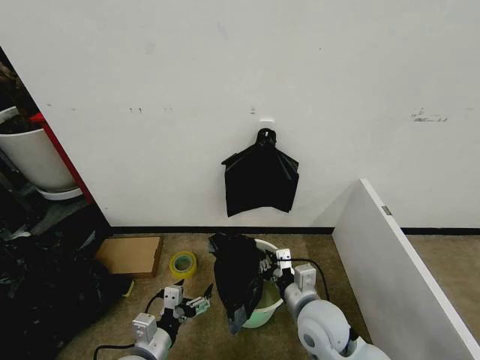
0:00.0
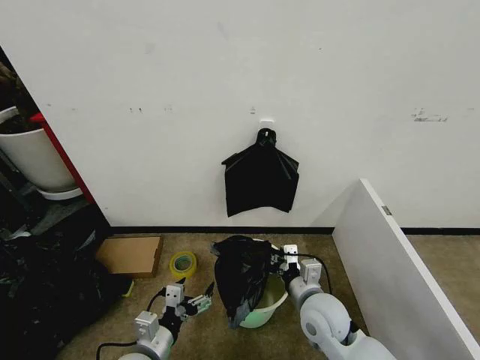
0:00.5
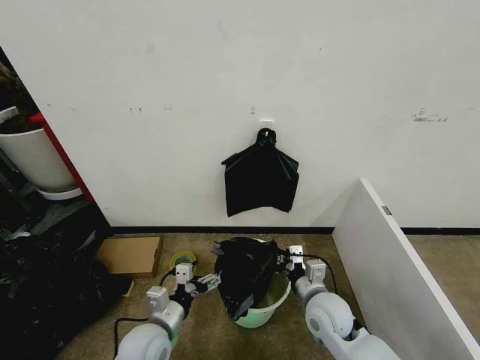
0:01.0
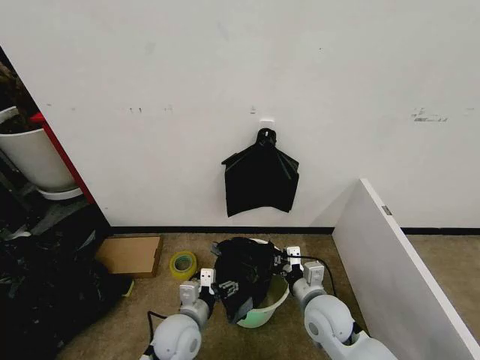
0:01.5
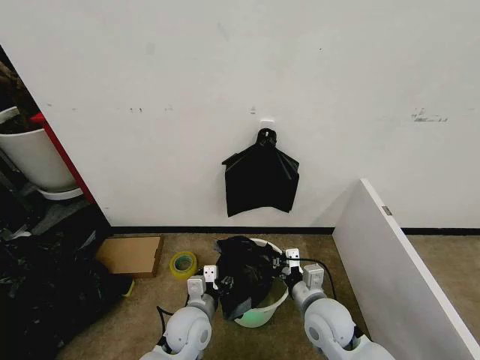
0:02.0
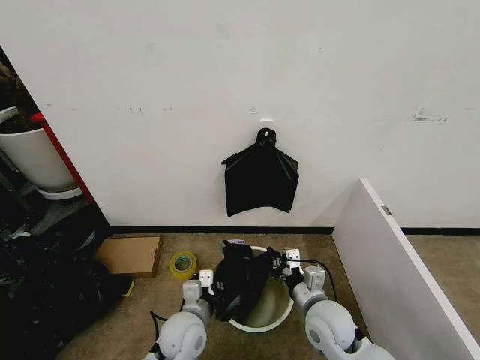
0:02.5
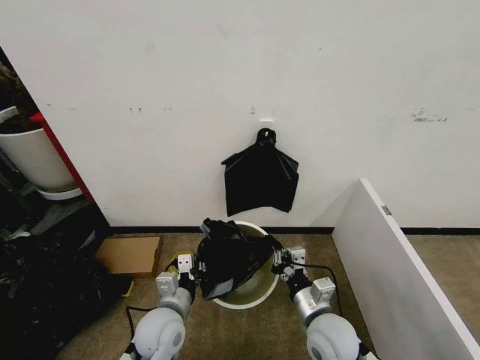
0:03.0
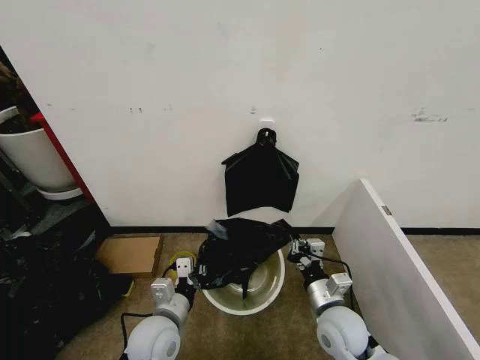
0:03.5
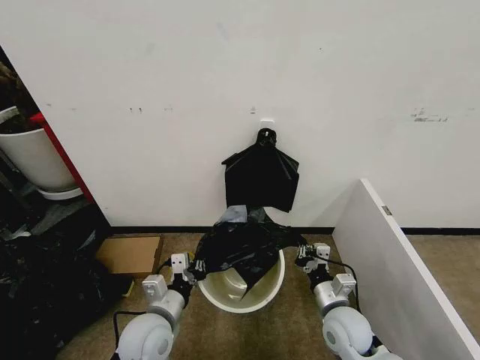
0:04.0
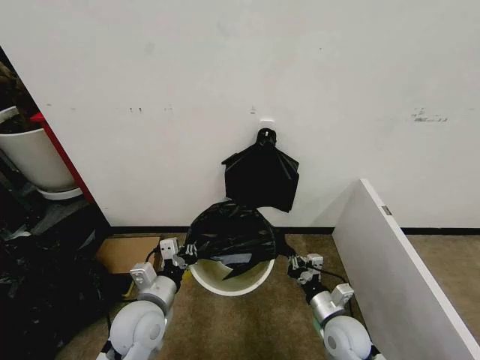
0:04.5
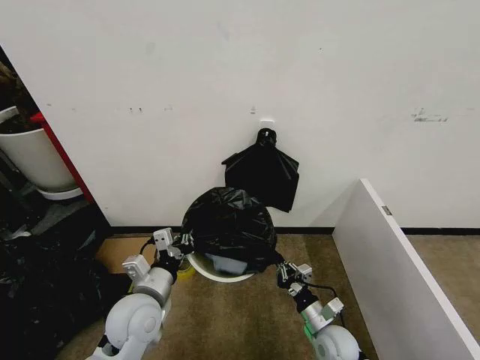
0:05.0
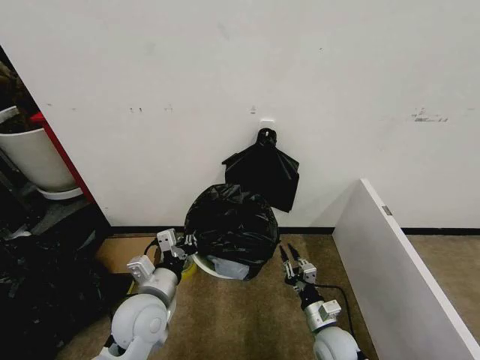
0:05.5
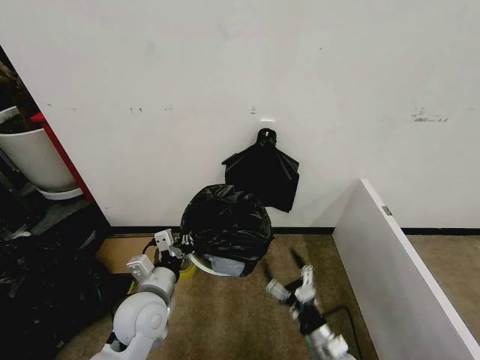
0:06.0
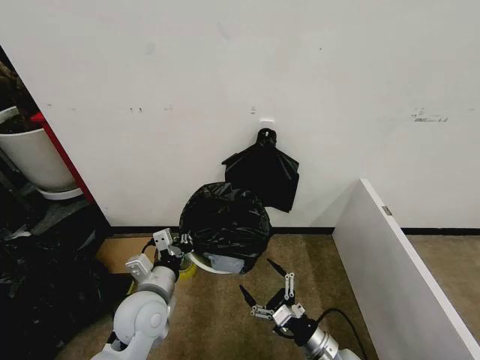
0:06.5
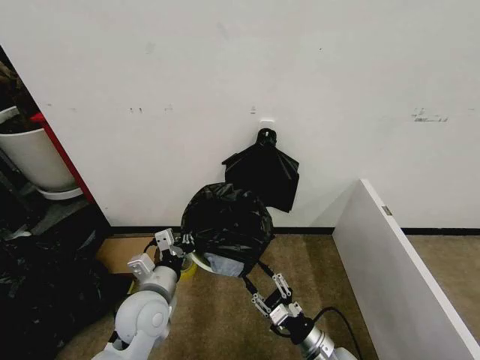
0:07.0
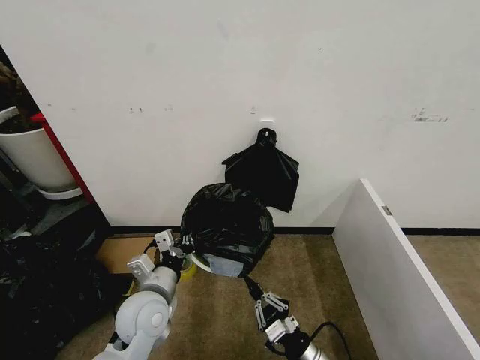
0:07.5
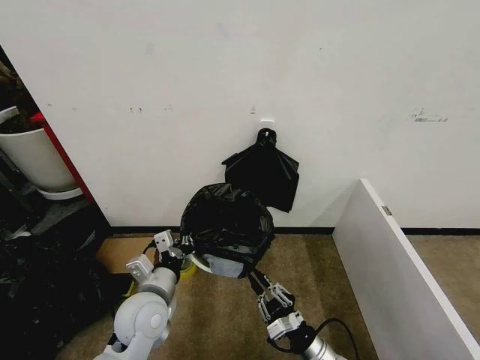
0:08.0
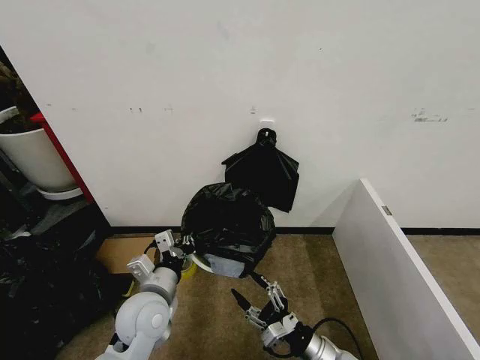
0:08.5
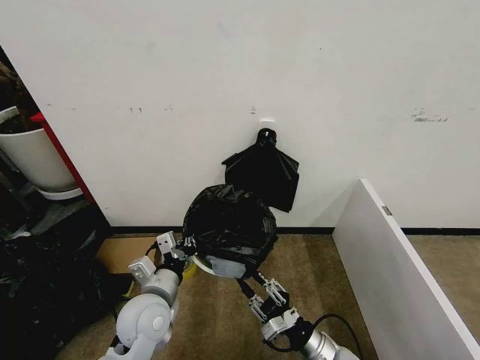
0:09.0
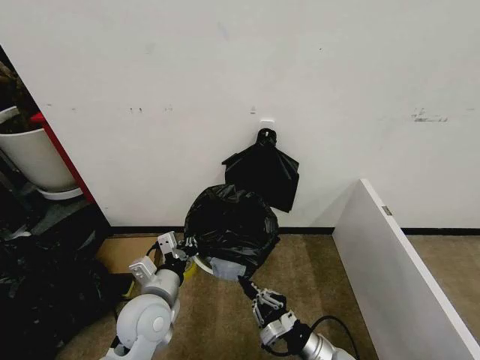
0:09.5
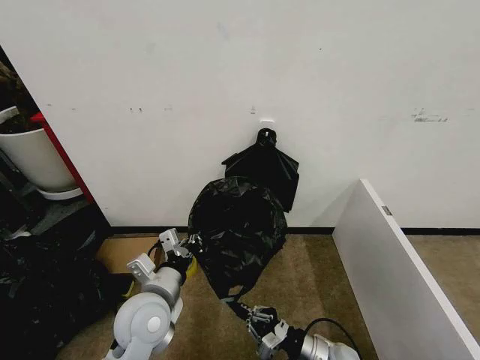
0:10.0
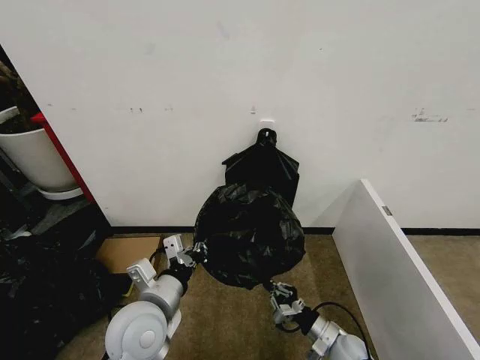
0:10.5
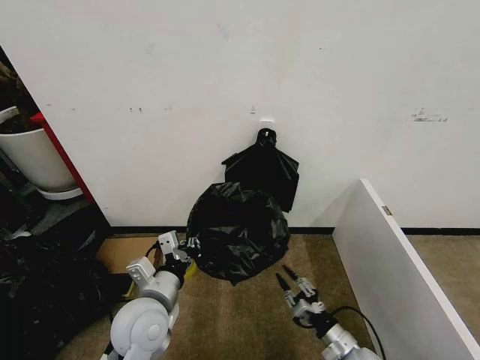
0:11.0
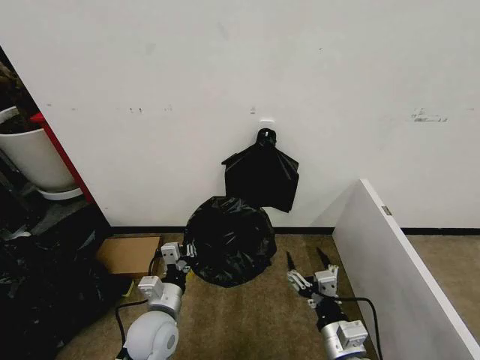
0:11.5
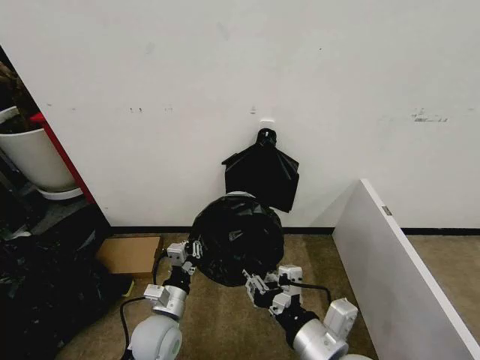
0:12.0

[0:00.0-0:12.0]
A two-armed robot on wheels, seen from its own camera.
Task of the whole recording: Place the garbage bag over the trash bin.
0:00.0 to 0:02.0: The left gripper heads to the right and forward, covering roughly 15 cm, and closes its fingers.
0:02.0 to 0:04.0: The left gripper shifts approximately 10 cm to the left and upward, and closes; the right gripper moves to the right, some 5 cm.
0:04.0 to 0:06.0: The right gripper heads backward and downward, covering roughly 10 cm, and opens up.
0:06.0 to 0:08.0: The right gripper closes up.
0:08.0 to 0:10.0: The right gripper opens and closes again.
0:10.0 to 0:12.0: The left gripper moves downward, about 10 cm, while the right gripper goes about 25 cm upward, and opens, then closes again.

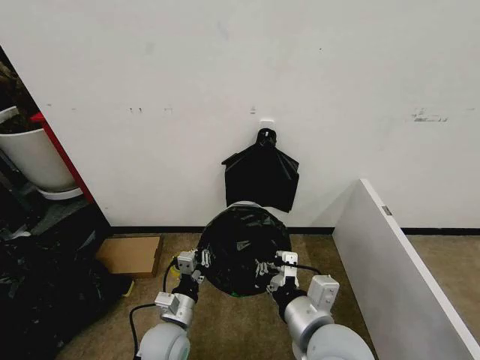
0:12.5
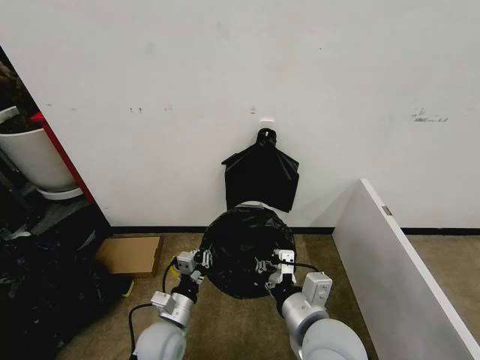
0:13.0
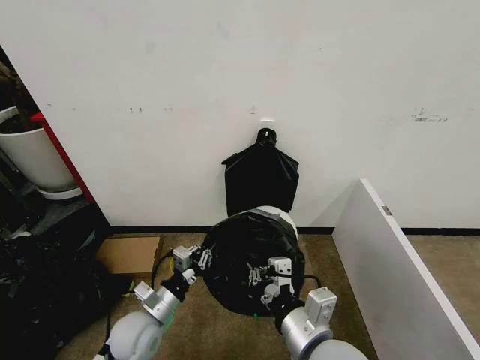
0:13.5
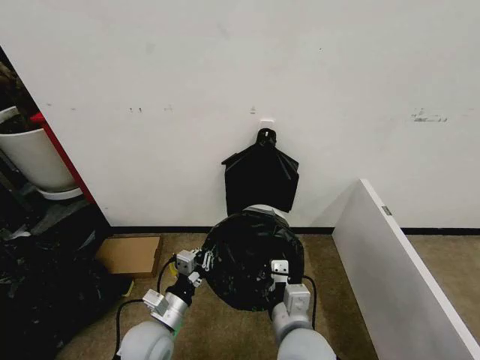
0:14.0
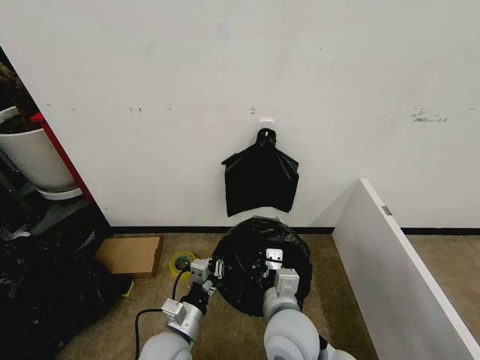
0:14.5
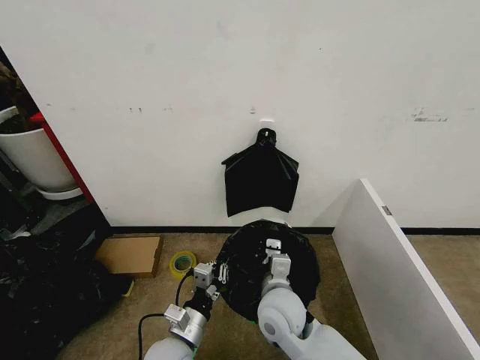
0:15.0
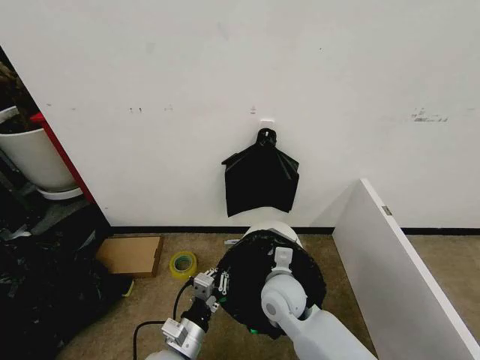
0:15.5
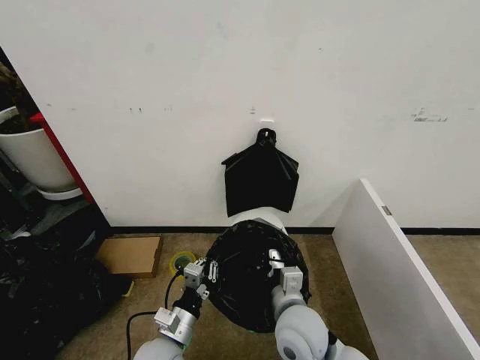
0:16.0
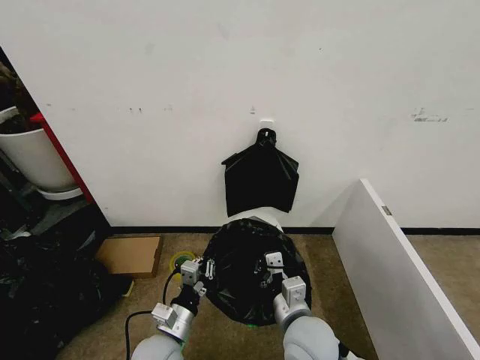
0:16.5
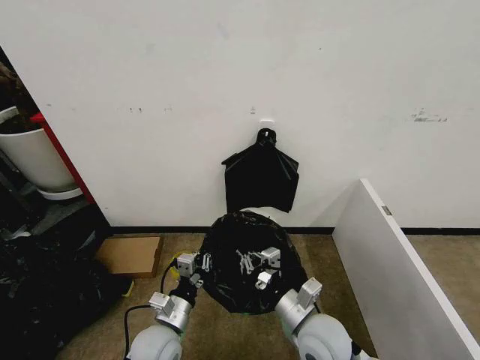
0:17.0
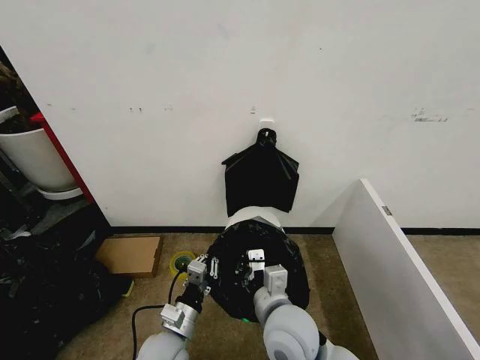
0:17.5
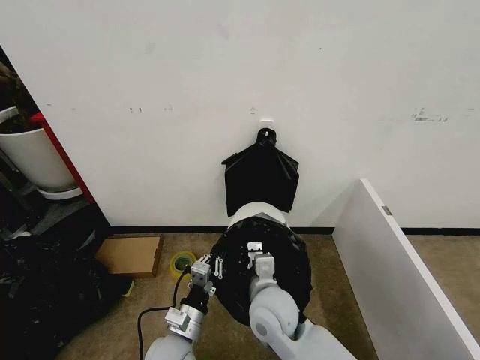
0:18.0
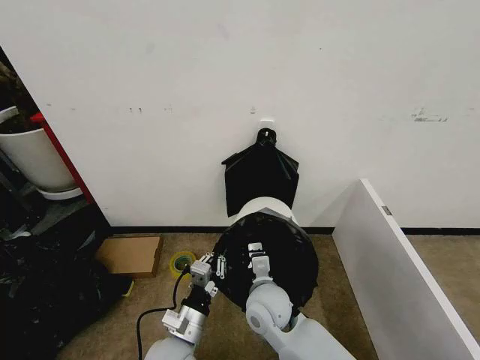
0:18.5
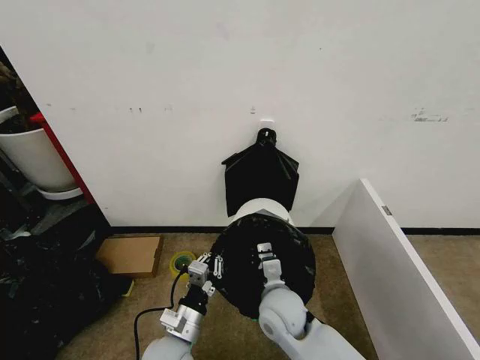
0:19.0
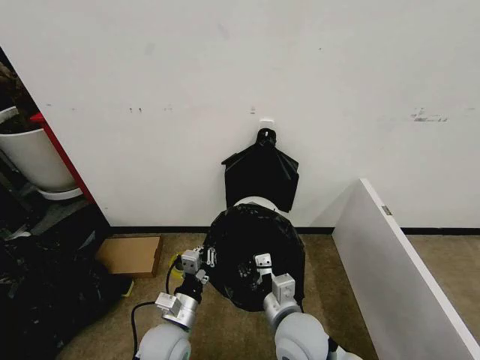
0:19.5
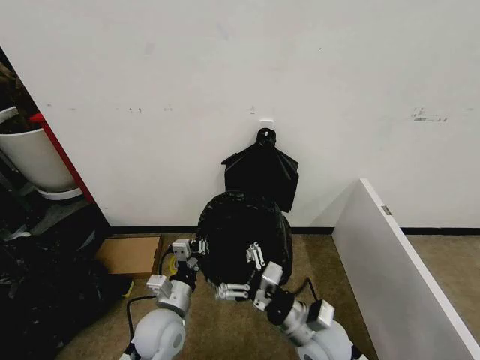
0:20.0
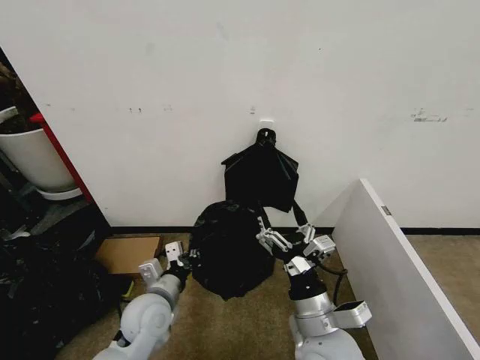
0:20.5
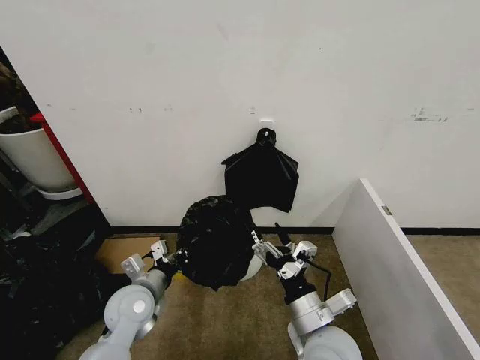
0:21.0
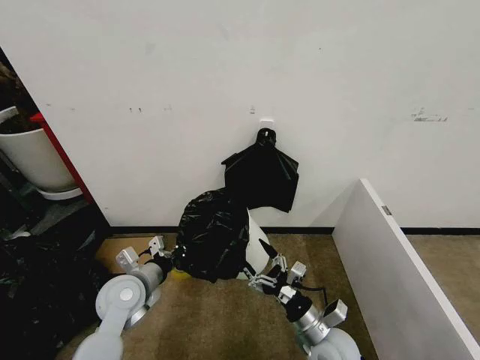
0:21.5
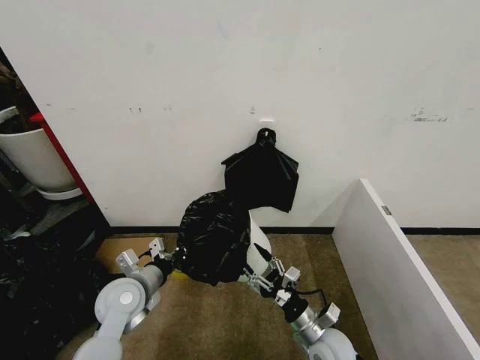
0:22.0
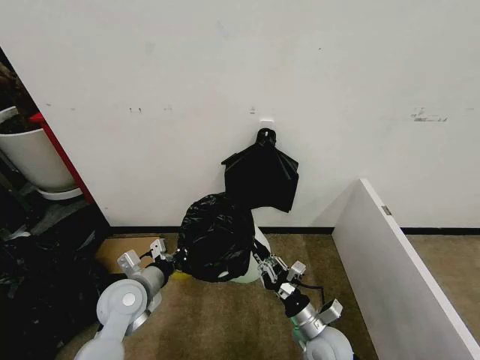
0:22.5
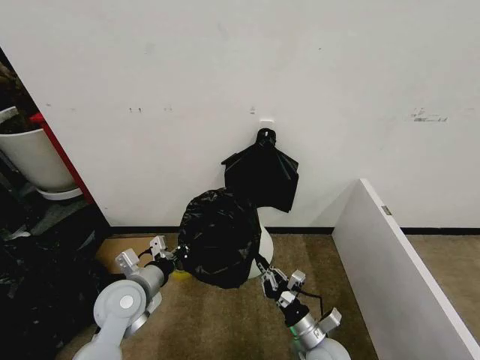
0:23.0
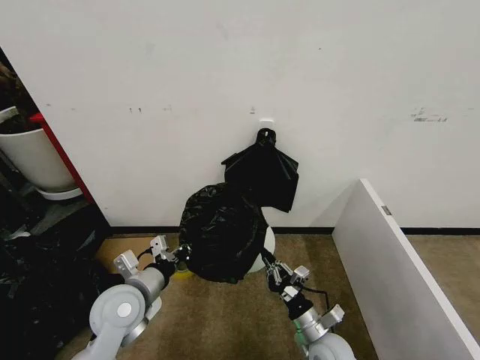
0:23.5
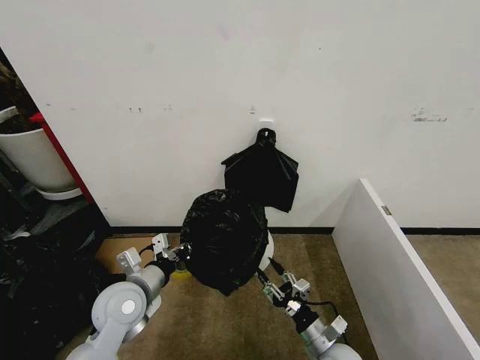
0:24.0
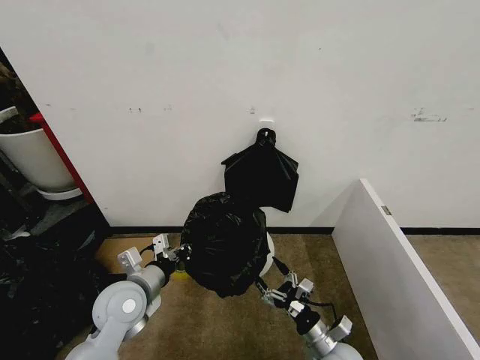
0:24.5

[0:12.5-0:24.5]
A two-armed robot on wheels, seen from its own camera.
Task of the whole recording: Place the garbage bag over the trash bin.
0:12.5 to 0:14.5: The right gripper goes about 10 cm downward and to the left.
0:14.5 to 0:16.5: The right gripper reaches some 10 cm forward, then returns.
0:16.5 to 0:18.5: The right gripper heads forward and to the left, covering approximately 10 cm.
0:18.5 to 0:20.5: The right gripper is displaced backward, to the right and upward by some 15 cm, and opens its fingers; the left gripper heads forward and to the left, covering some 10 cm.
0:20.5 to 0:22.5: The right gripper moves downward, some 15 cm, and closes its fingers. Meanwhile the left gripper is displaced to the left by approximately 5 cm.
0:22.5 to 0:24.5: The right gripper moves approximately 5 cm, and opens up.

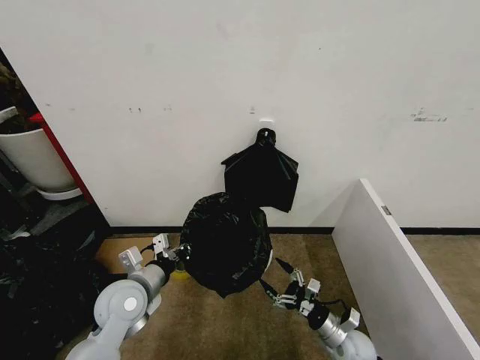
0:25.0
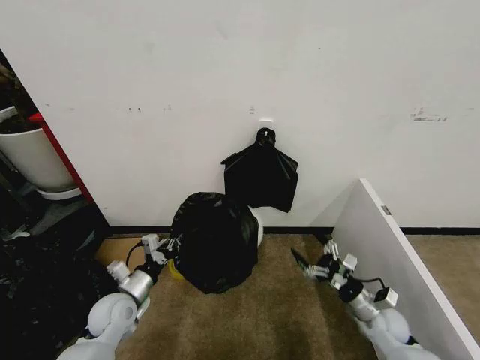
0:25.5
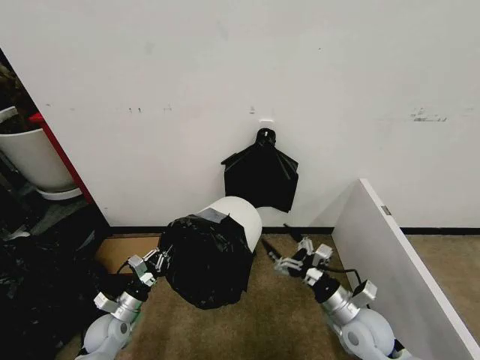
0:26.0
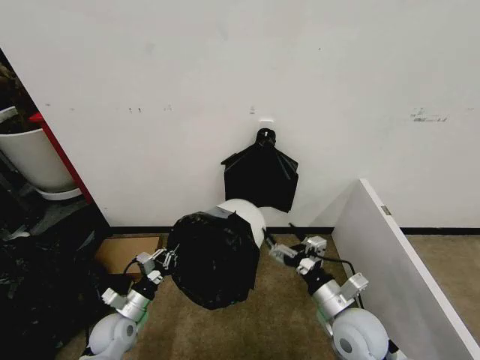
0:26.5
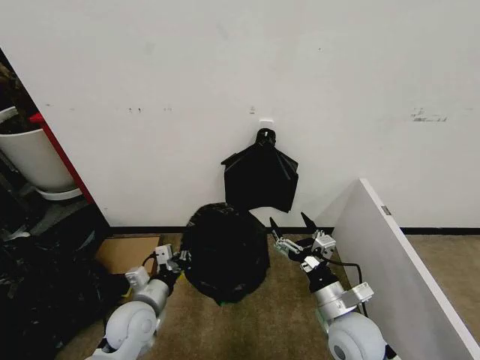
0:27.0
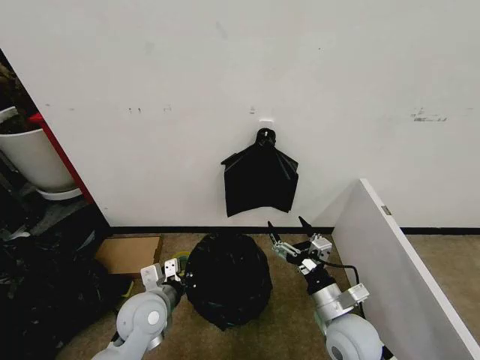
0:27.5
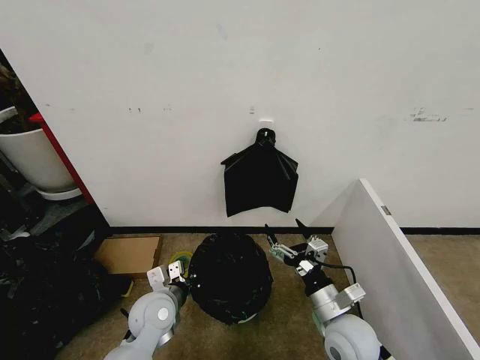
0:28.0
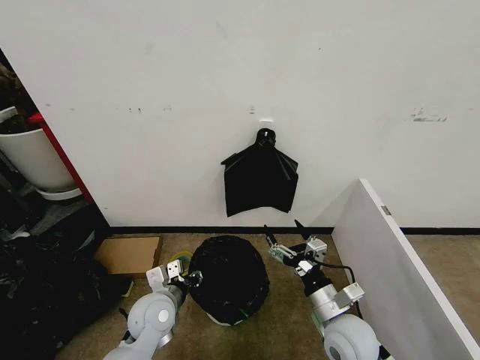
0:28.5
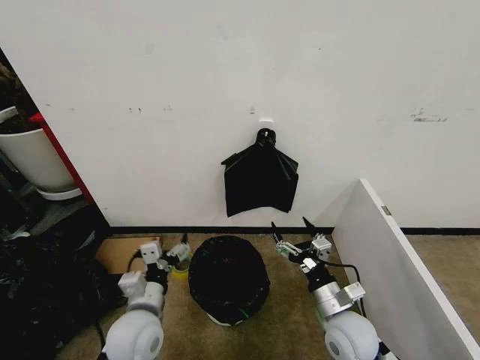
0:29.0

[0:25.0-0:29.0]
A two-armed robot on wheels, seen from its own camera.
Task of the whole recording: Place the garbage bag over the trash bin.
0:25.0 to 0:27.0: The right gripper shifts about 20 cm upward and to the left; the left gripper moves downward, about 5 cm.
0:27.0 to 0:29.0: The left gripper moves about 5 cm, and opens.
